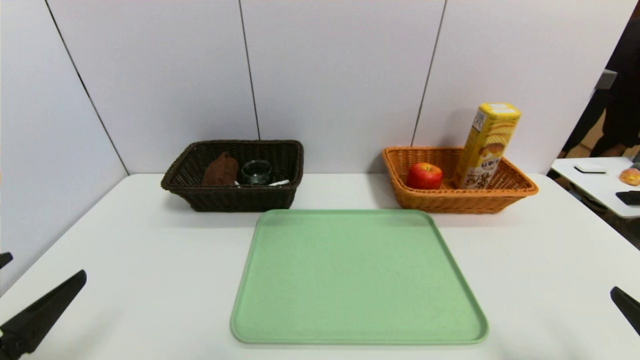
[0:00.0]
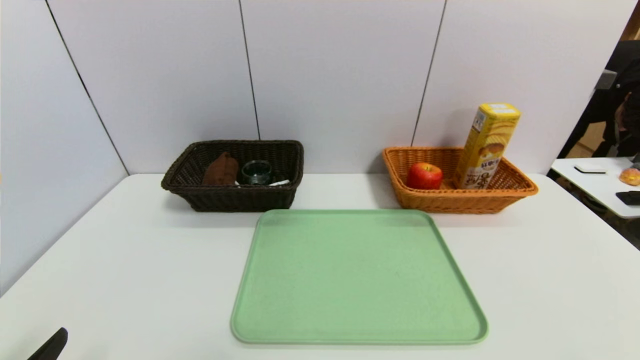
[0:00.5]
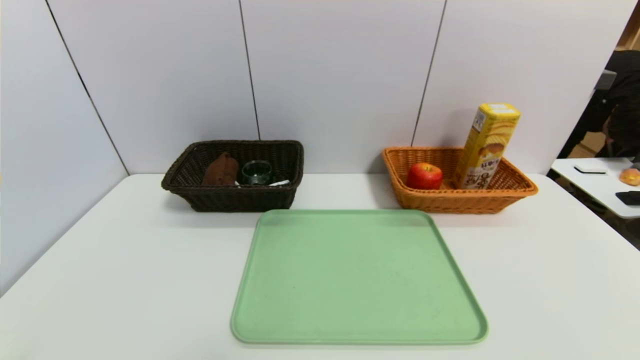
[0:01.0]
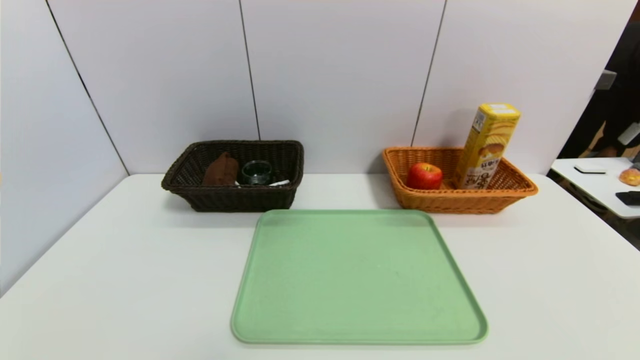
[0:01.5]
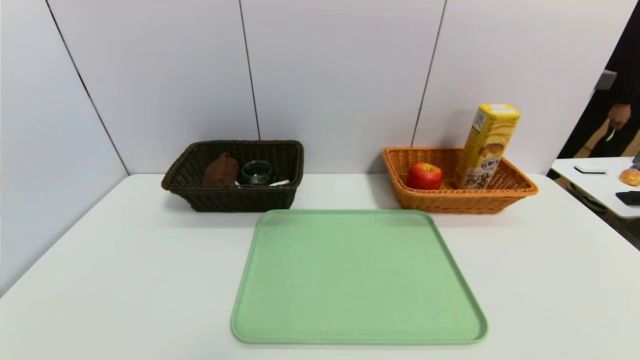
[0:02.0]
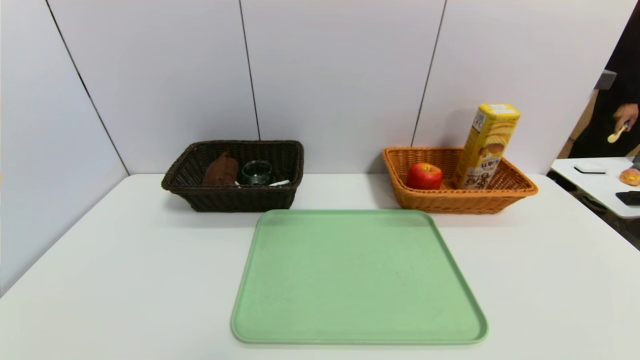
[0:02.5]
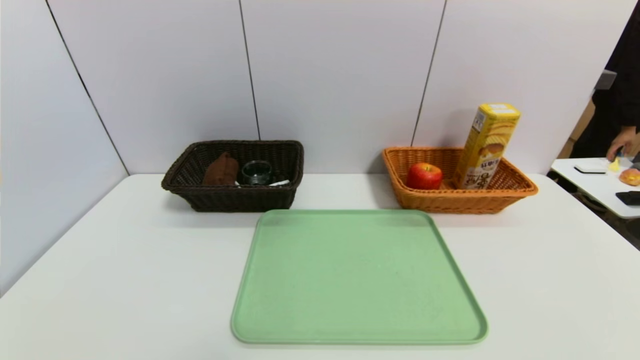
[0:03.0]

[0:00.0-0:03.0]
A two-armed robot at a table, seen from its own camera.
Task of the whole recording: place the food in the right basket with the right gripper, and place the non food items in the left basket with the left gripper.
0:00.0 to 0:01.5: The right gripper heads backward and downward, covering about 10 cm, while the left gripper heads downward and backward, covering about 15 cm.

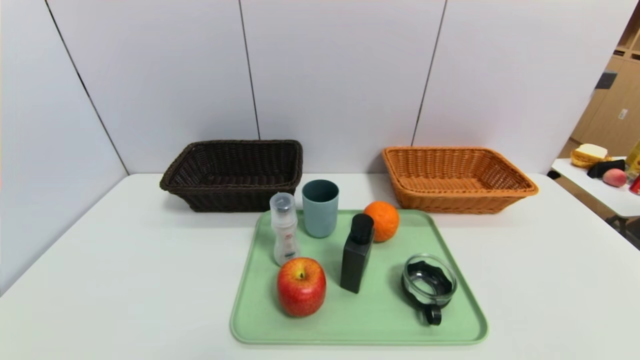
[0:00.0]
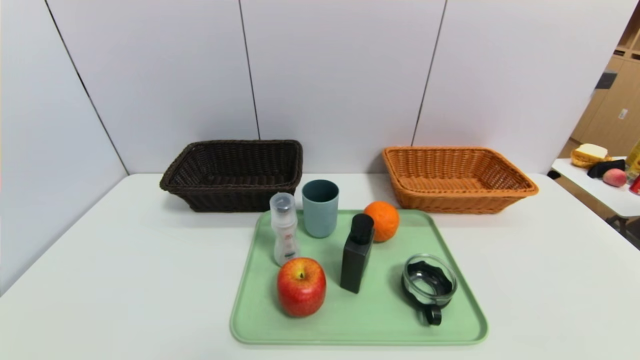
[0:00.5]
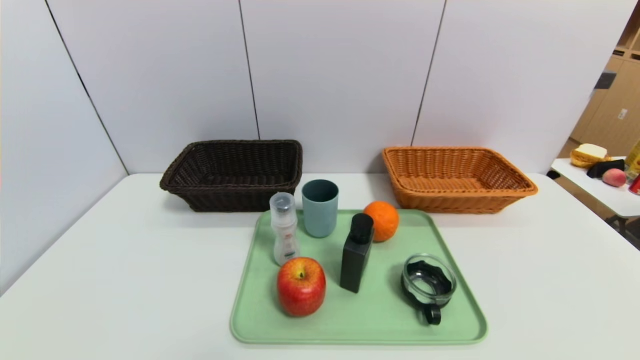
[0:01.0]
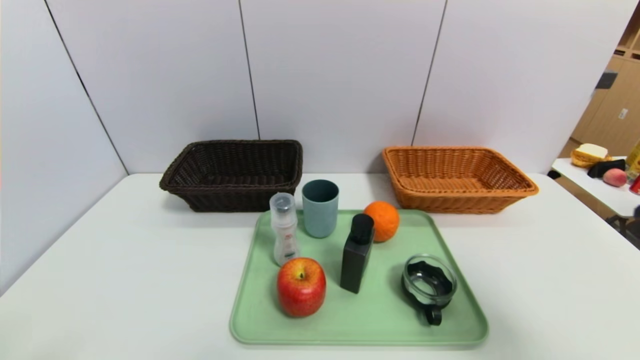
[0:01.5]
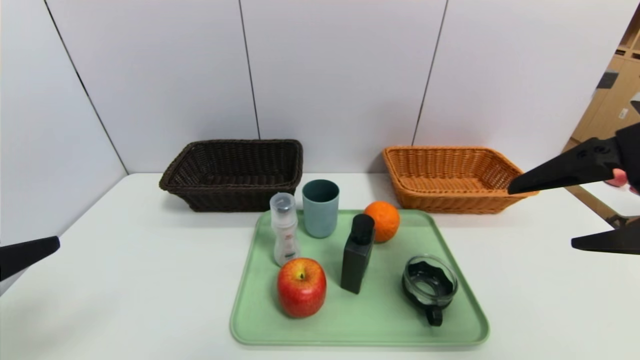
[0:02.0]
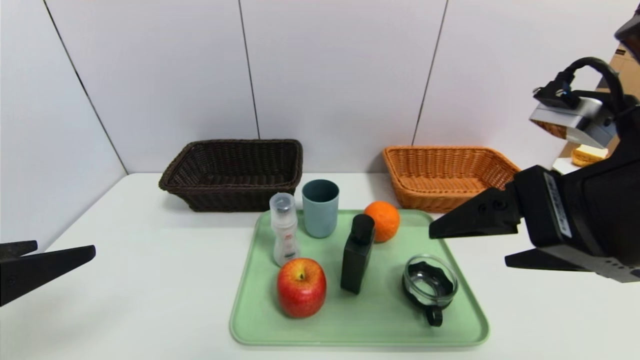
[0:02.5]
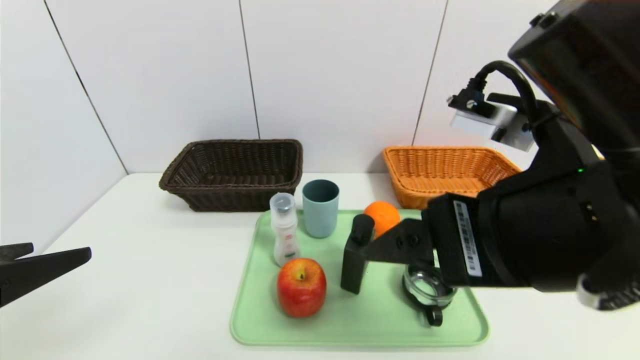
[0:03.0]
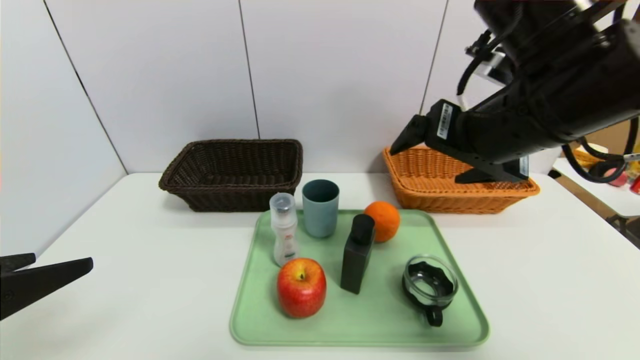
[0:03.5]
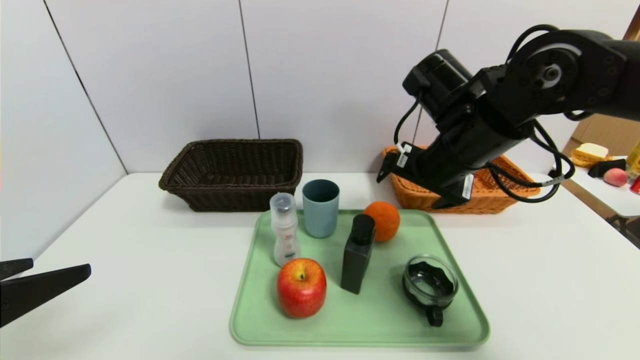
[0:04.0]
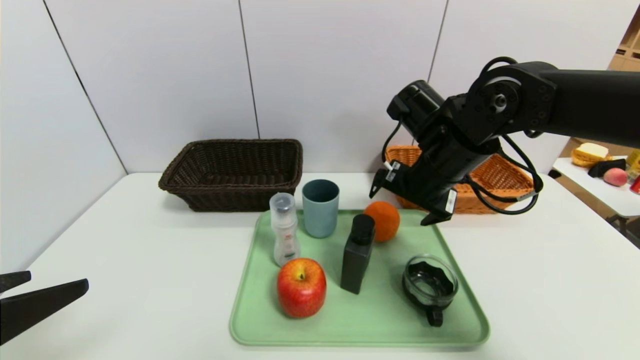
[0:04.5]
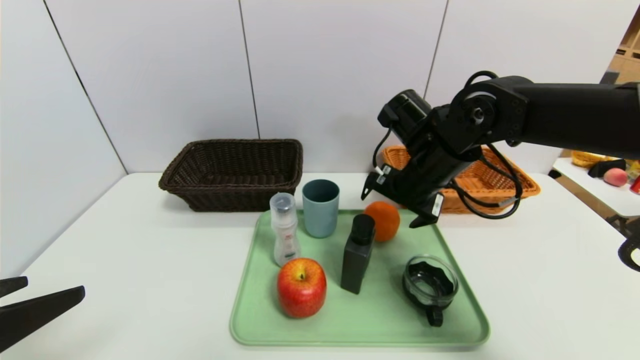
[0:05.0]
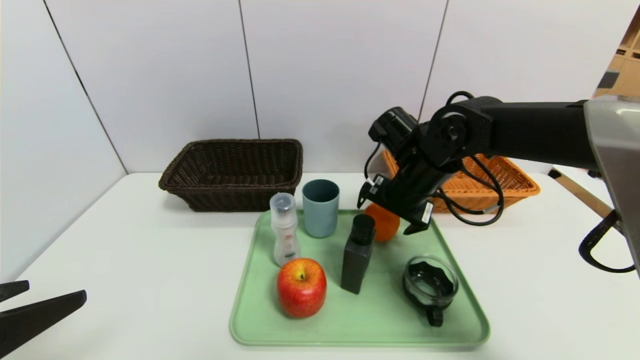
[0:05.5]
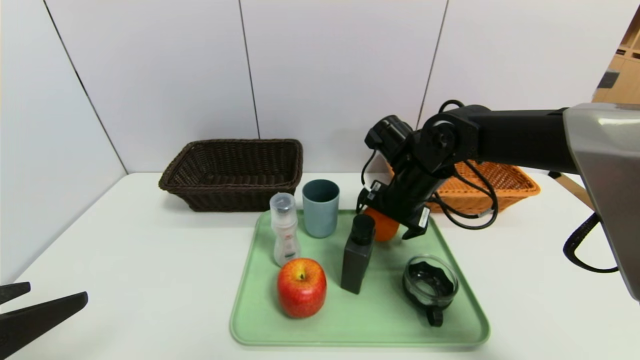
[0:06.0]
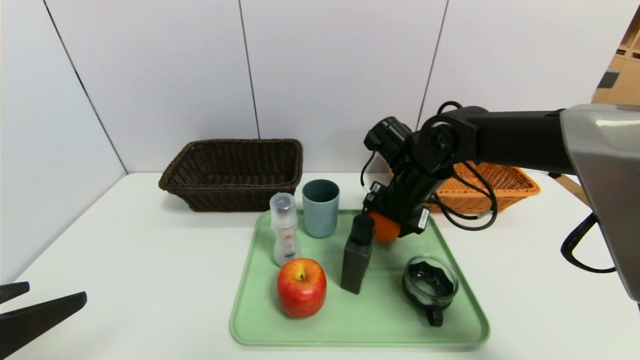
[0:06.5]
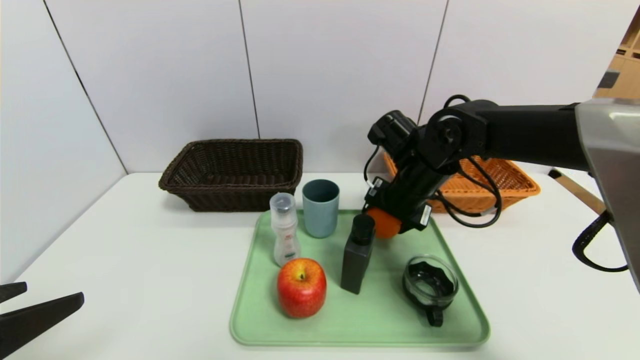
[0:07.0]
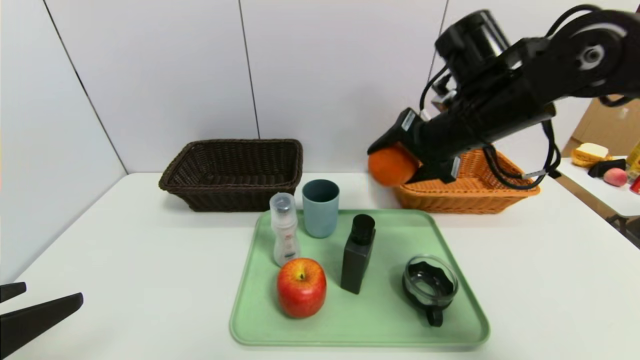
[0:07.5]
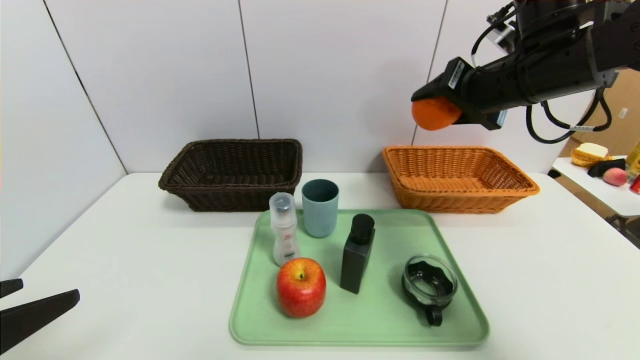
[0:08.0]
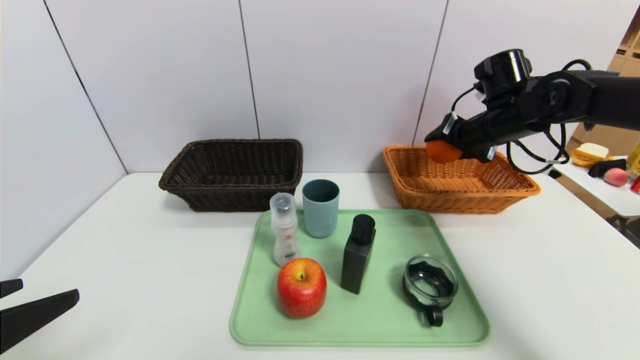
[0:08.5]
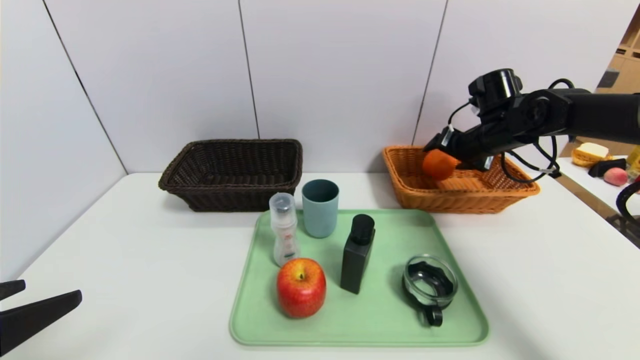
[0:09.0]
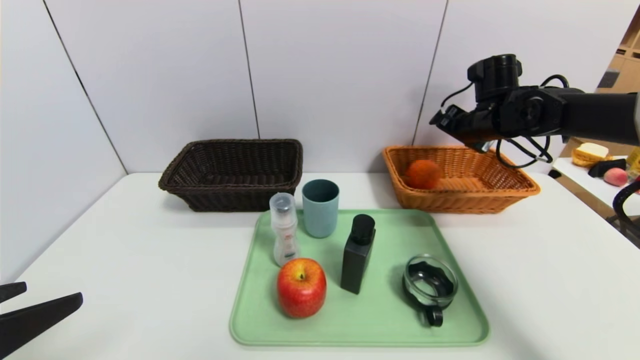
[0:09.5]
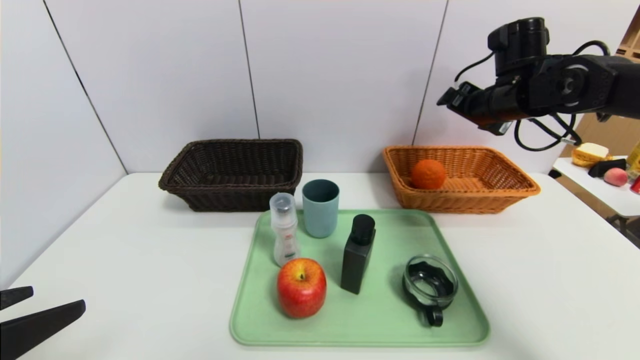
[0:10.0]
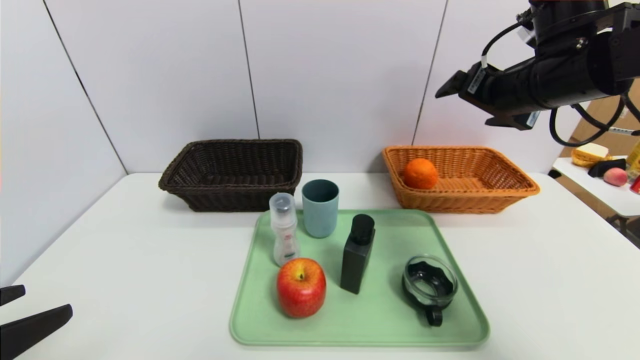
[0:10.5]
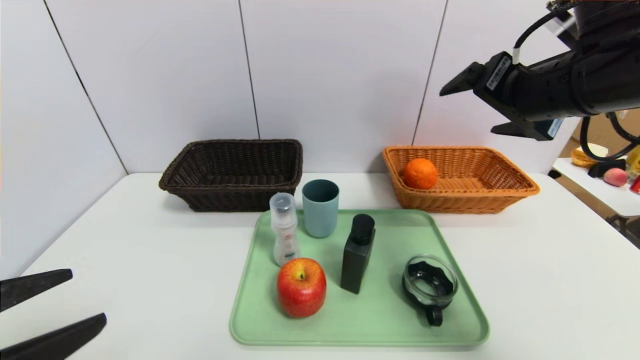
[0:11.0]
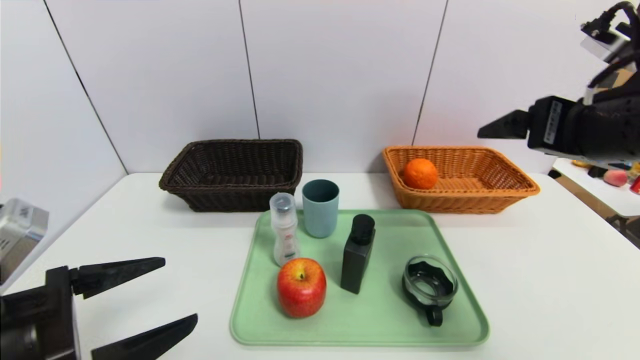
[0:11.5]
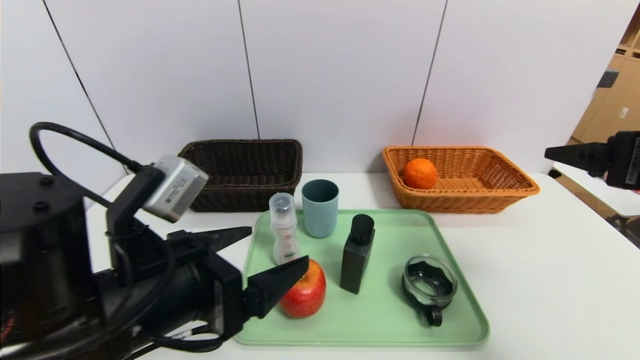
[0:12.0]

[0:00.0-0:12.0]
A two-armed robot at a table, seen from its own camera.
Task of the whole recording: place the food in the right basket with the right gripper, and place the non food items in the left basket with the left gripper.
Step, 0:00.0 to 0:10.0: Grasp the orange and put it in the right basket.
0:00.0 to 0:02.0: Both grippers move upward and forward, approximately 25 cm.
0:02.0 to 0:04.0: The right gripper goes approximately 20 cm forward, to the left and downward.
0:04.0 to 0:06.0: The right gripper heads downward, covering roughly 10 cm.
0:06.0 to 0:08.0: The right gripper shifts some 20 cm upward and to the right, and closes up.
0:08.0 to 0:10.0: The right gripper travels forward by some 5 cm, and opens up.
0:10.0 to 0:12.0: The left gripper is displaced to the right and forward by about 15 cm; the right gripper heads backward, covering roughly 25 cm.

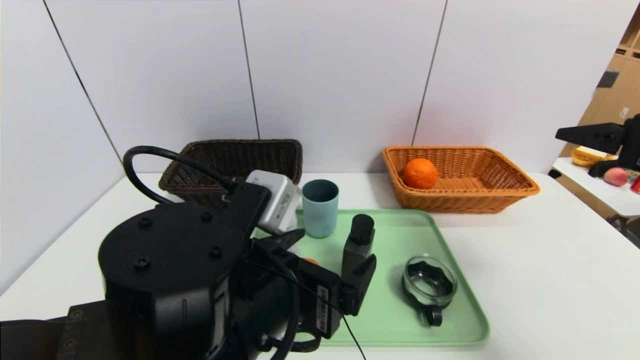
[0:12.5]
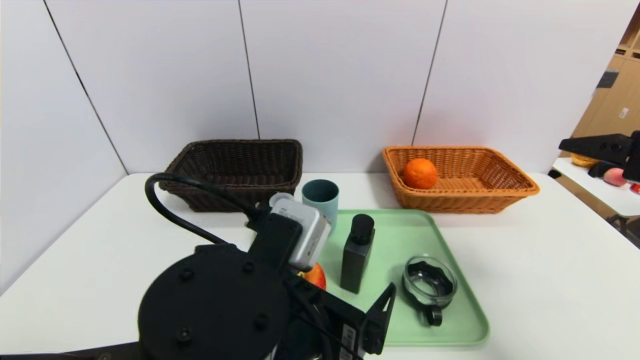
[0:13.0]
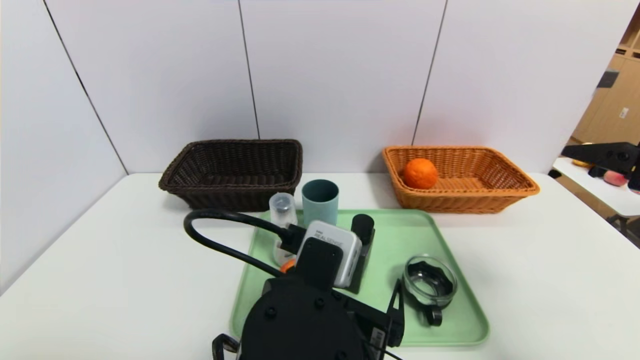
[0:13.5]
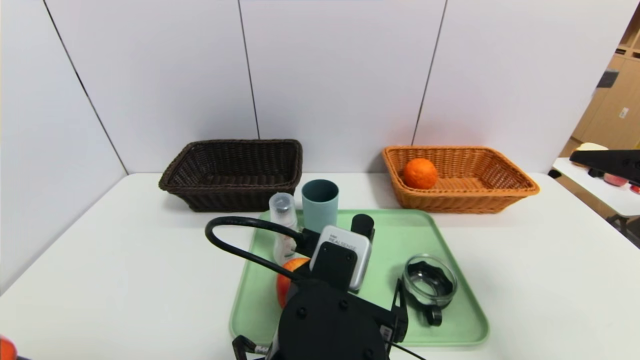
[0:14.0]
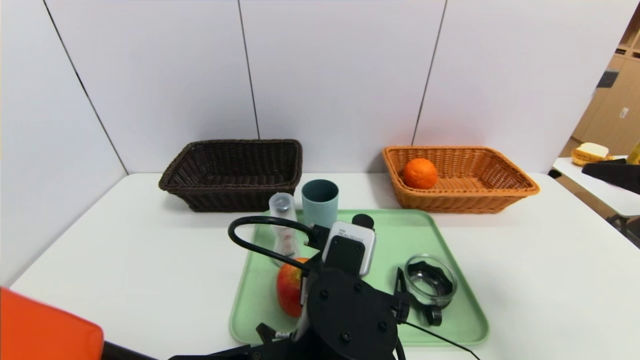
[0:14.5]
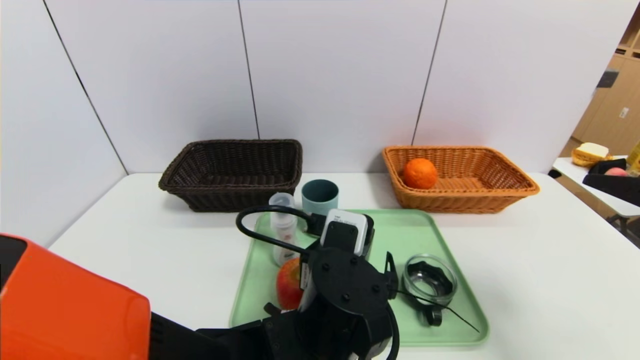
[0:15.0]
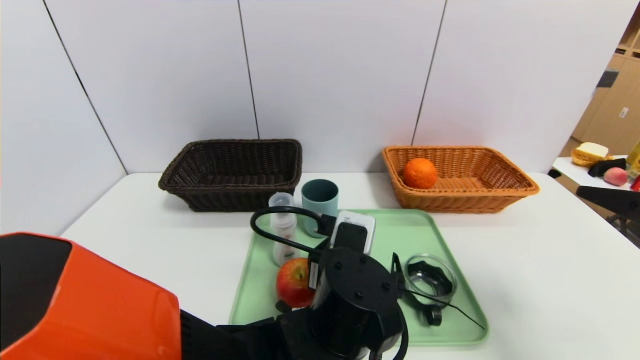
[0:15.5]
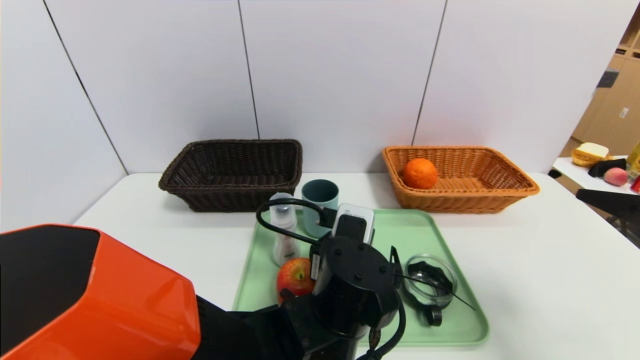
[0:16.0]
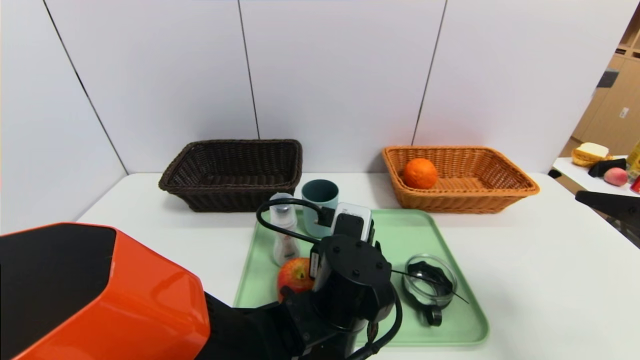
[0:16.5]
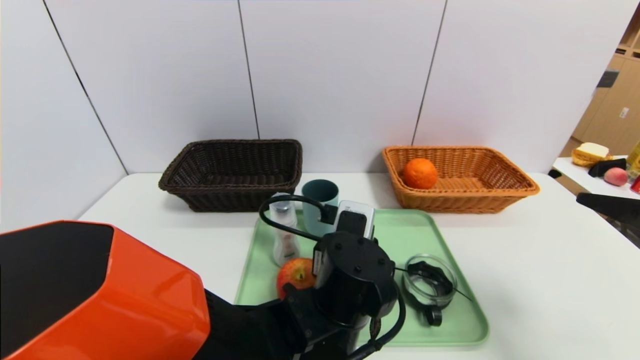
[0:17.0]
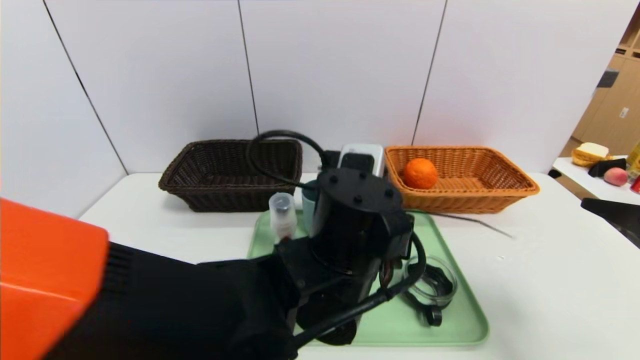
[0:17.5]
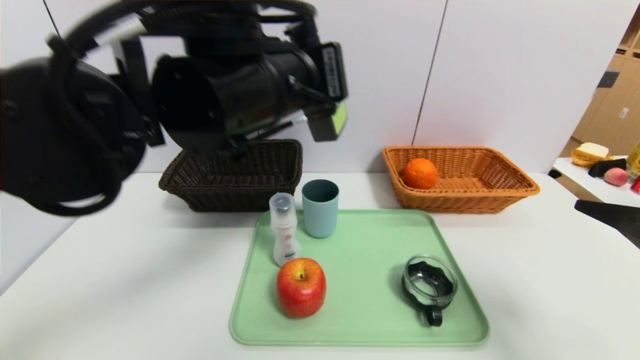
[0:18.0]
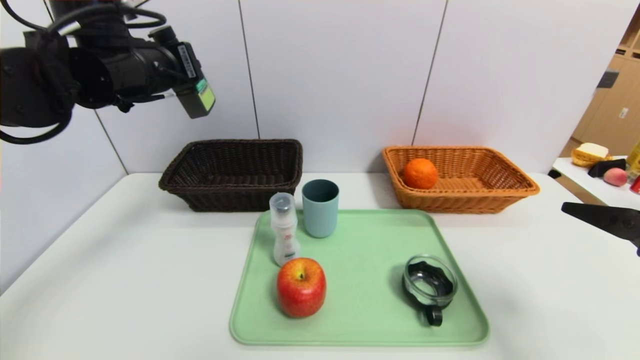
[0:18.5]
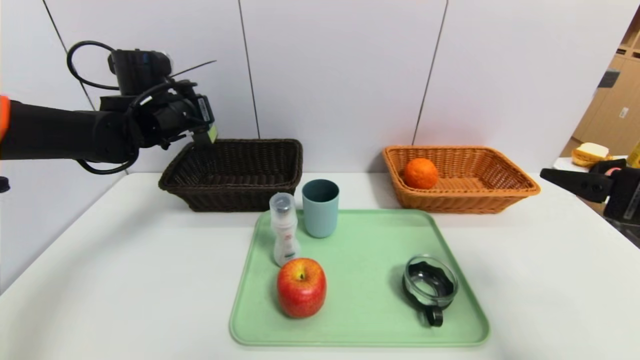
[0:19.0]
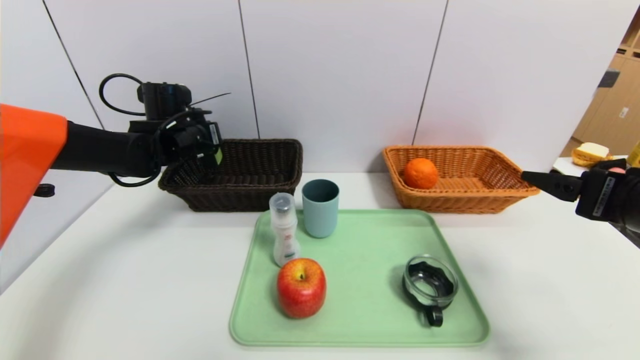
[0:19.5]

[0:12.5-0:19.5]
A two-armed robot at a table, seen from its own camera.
Task of the whole recording: place the food in the right basket with the right gripper, and place the non food items in the left basket with the left gripper.
0:12.5 to 0:14.5: The left gripper goes approximately 10 cm to the right and downward. The right gripper ends up about 5 cm from where it was.
0:14.5 to 0:16.0: The left gripper moves approximately 5 cm.
0:16.0 to 0:17.5: The left gripper goes some 10 cm upward, and closes.
0:17.5 to 0:19.5: The right gripper travels forward by approximately 5 cm. The left gripper goes approximately 35 cm to the left and forward.
